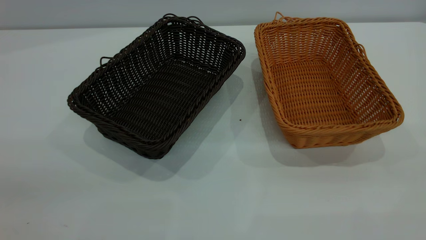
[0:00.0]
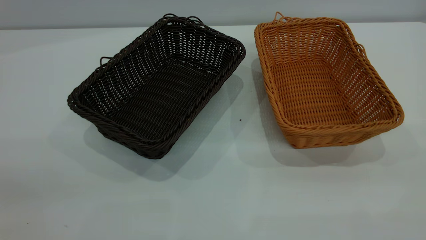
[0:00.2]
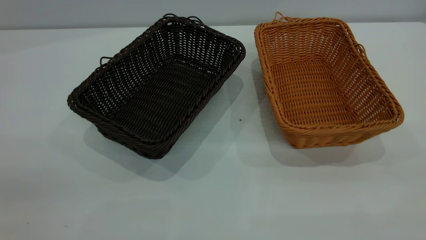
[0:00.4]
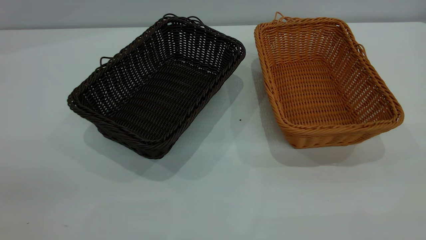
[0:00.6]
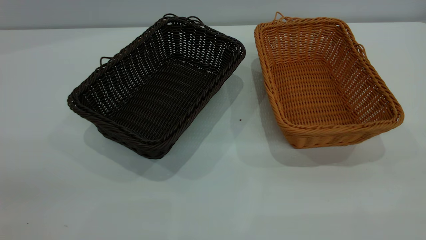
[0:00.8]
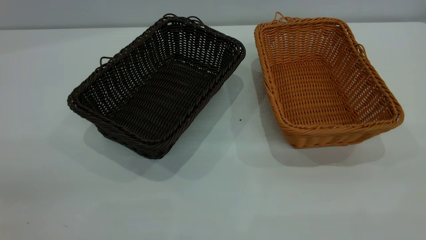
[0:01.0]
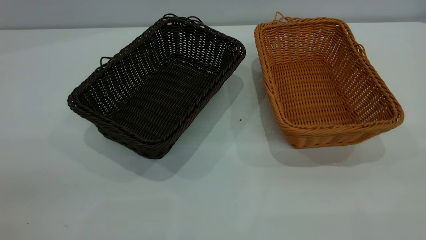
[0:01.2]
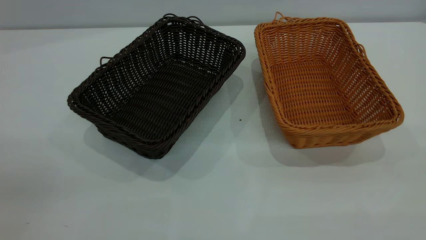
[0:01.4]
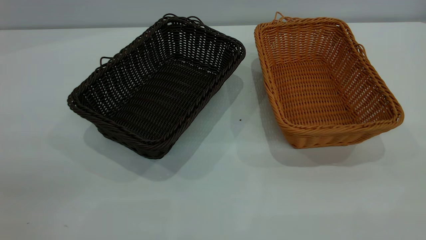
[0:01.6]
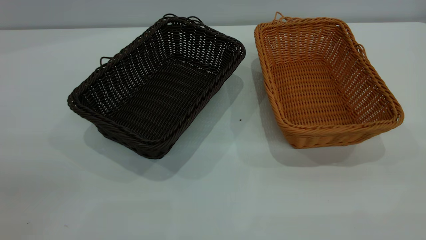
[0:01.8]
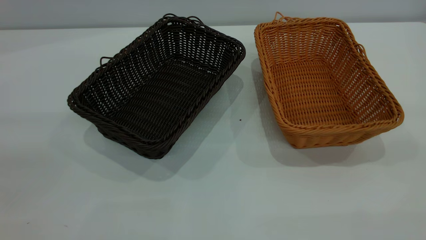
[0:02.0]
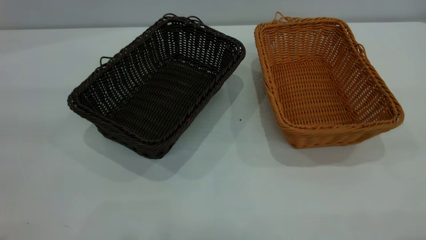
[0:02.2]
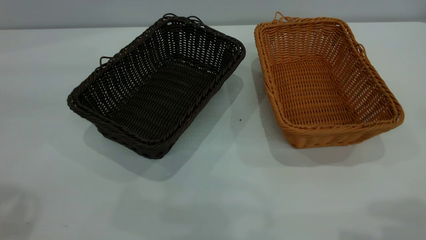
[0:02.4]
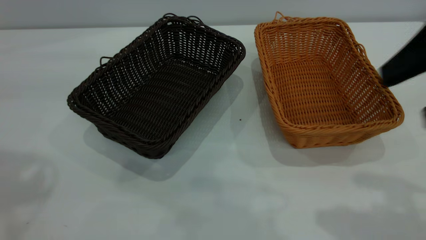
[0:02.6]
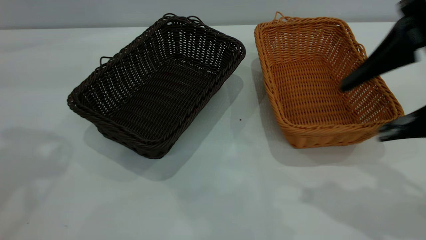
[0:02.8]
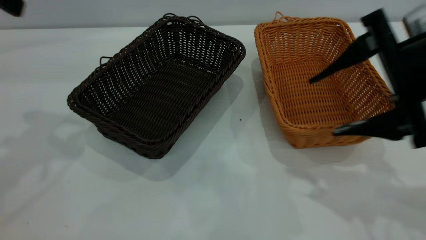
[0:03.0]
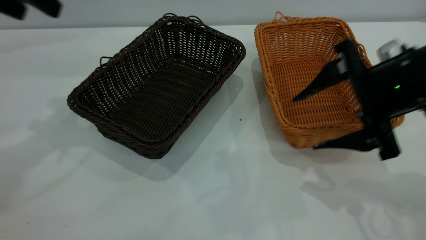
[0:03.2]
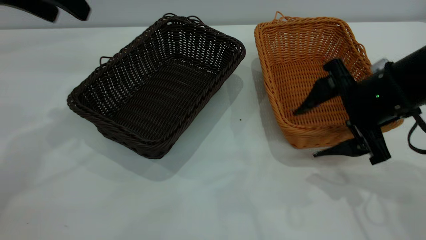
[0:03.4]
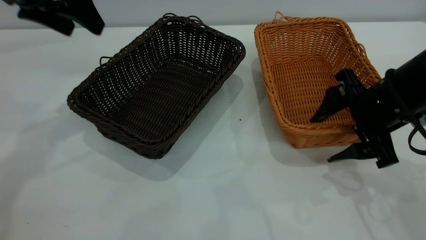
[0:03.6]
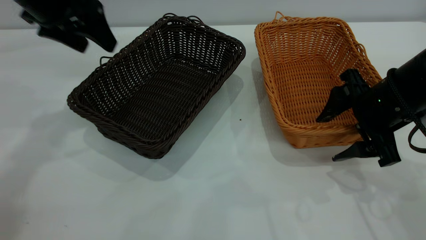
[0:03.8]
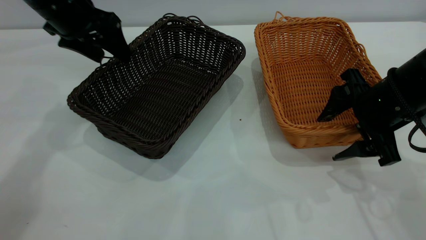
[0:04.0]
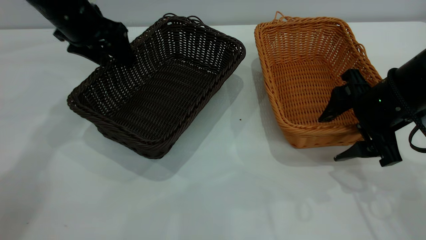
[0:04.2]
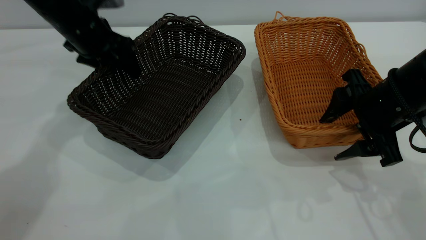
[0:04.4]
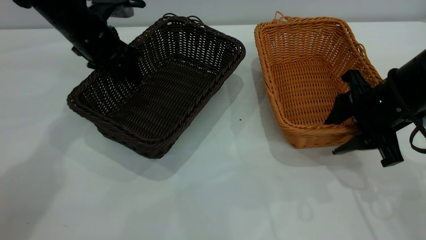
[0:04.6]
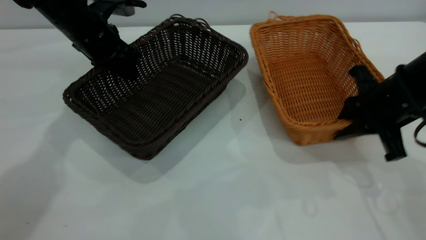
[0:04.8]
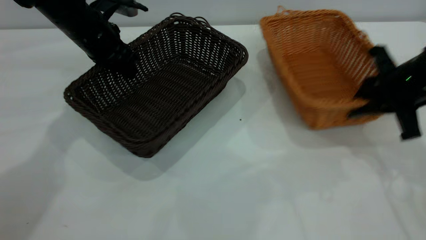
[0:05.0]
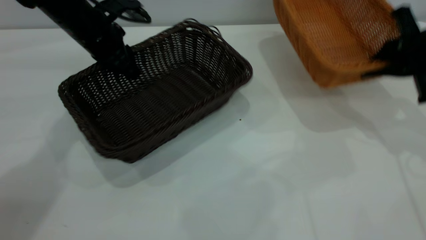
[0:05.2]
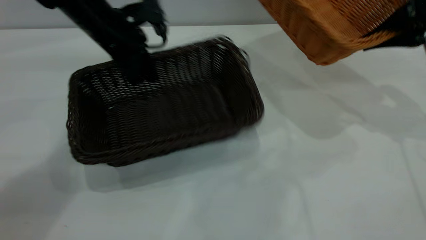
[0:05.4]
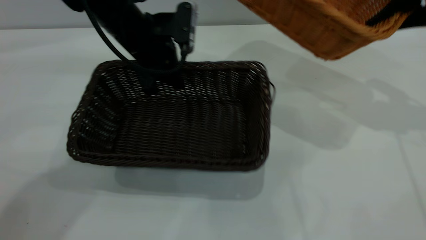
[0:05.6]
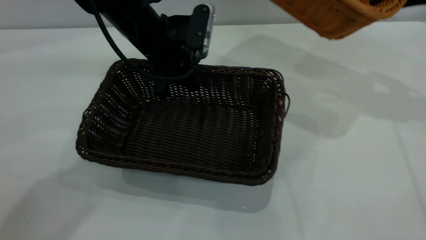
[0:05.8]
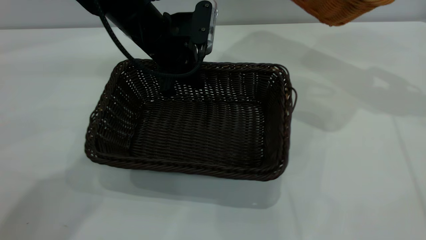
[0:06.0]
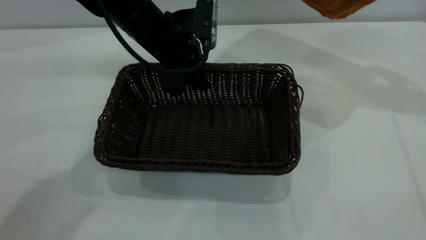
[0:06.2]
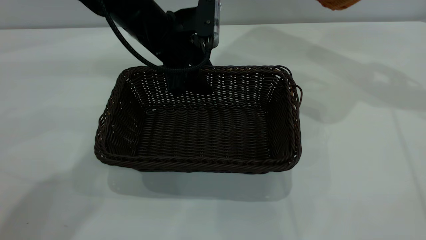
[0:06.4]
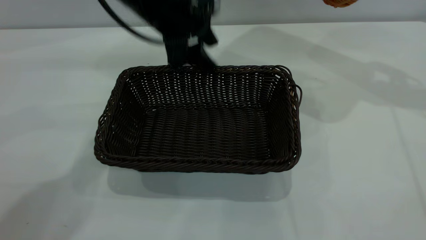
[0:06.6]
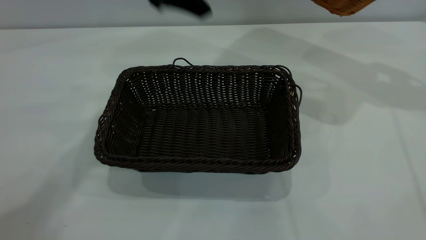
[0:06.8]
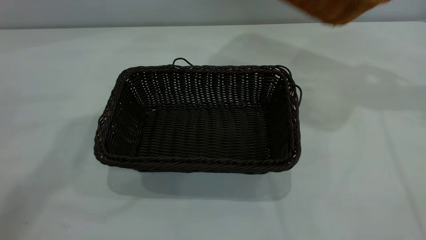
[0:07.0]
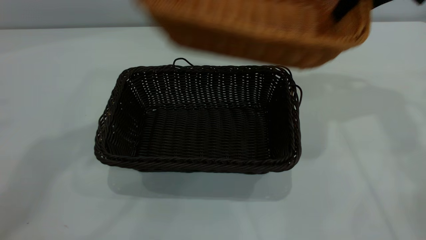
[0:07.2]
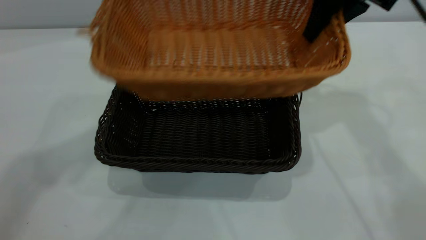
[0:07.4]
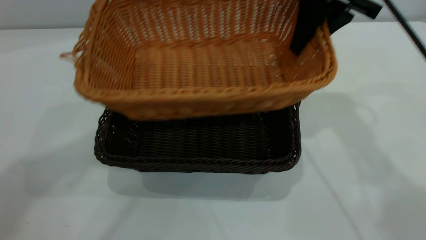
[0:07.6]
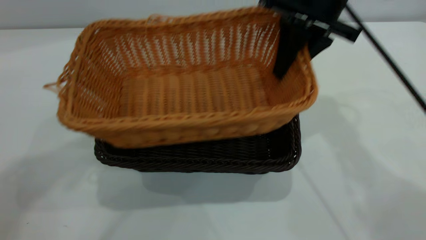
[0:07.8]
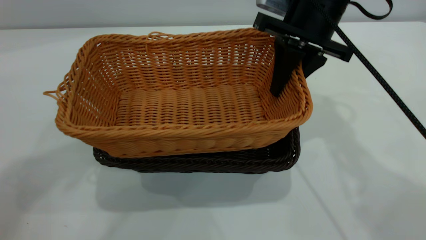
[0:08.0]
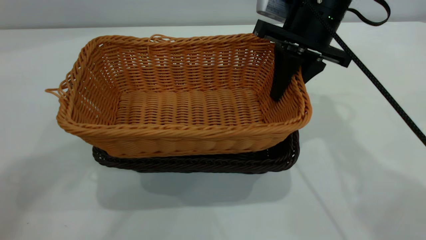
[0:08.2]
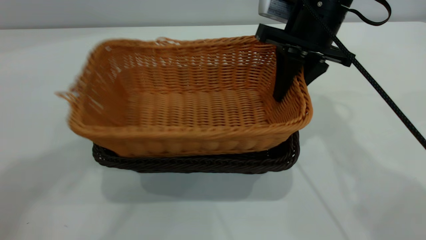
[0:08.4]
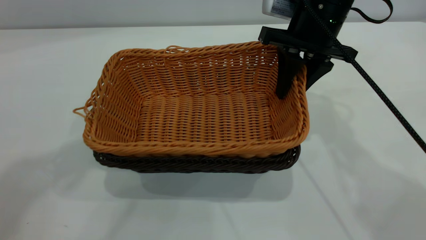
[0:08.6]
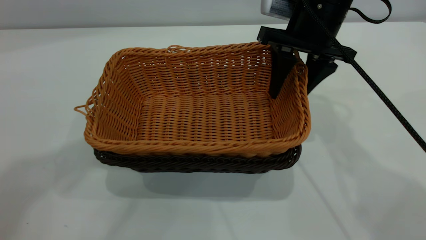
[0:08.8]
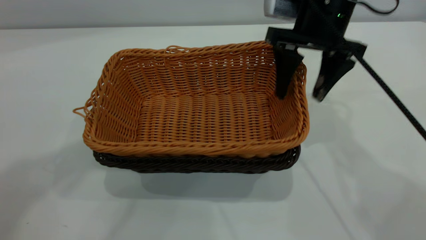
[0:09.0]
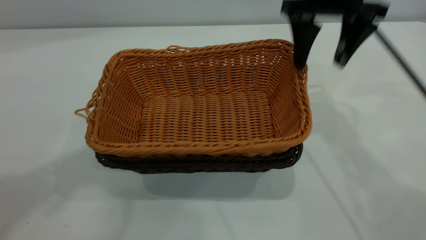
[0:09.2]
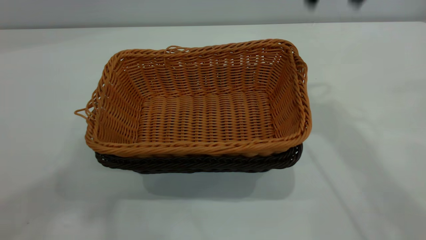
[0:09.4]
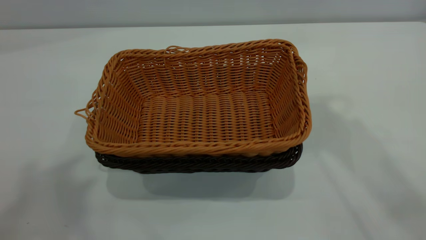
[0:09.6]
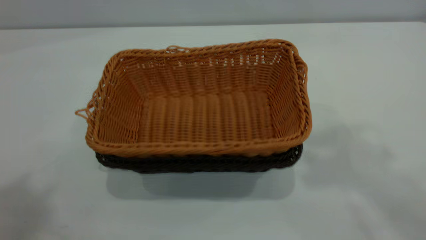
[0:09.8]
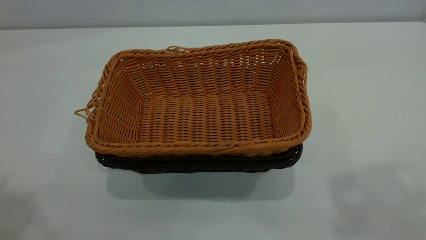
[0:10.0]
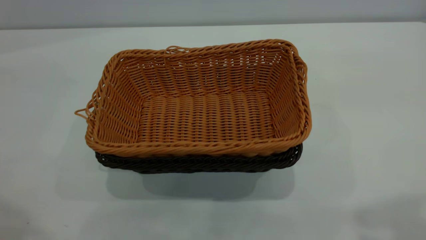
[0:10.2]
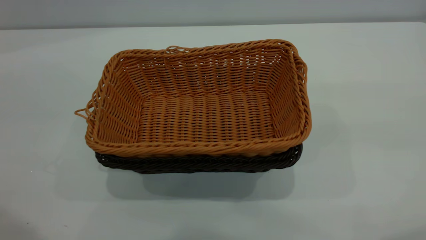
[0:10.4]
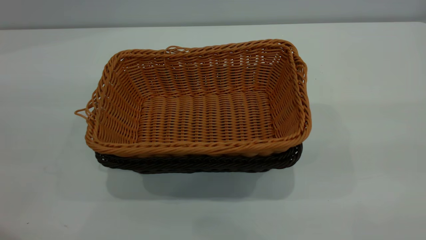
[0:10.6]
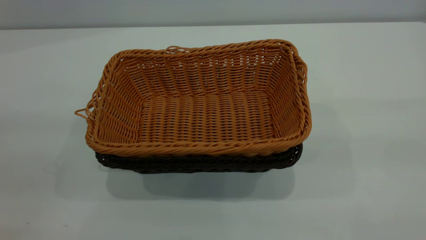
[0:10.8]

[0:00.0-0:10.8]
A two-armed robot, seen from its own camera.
Task of the whole recording: the left gripper grasp the black basket and place it in the center of the table, the right gripper grasp the brown basket and place it inside the black one.
Step, 0:00.0 to 0:05.2: Pick up the light basket with the right gripper.
Step, 0:05.4 to 0:06.6: Move the dark basket to the center of view.
Step, 0:06.8 to 0:09.2: Place the light basket on the dark basket.
0:00.0 to 0:01.6: Both grippers stay about where they are.
0:01.6 to 0:03.0: The right gripper shifts roughly 30 cm forward and downward.
0:03.0 to 0:04.6: The left gripper travels downward, forward and to the right by roughly 25 cm, and closes its fingers. Meanwhile the right gripper shifts some 10 cm downward, and closes its fingers.
0:04.6 to 0:06.2: The left gripper shifts approximately 10 cm to the right, and closes and opens again; the right gripper travels upward, forward and to the right by about 25 cm, and closes.
0:06.2 to 0:07.8: The left gripper goes approximately 35 cm upward, and opens. The right gripper is displaced to the left by approximately 20 cm.
0:07.8 to 0:09.2: The right gripper opens up.
0:09.2 to 0:10.8: The right gripper shifts roughly 30 cm backward.

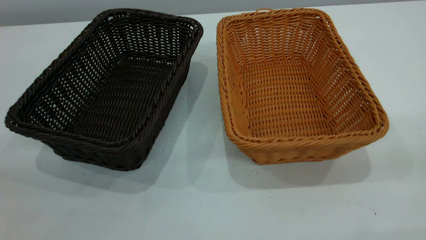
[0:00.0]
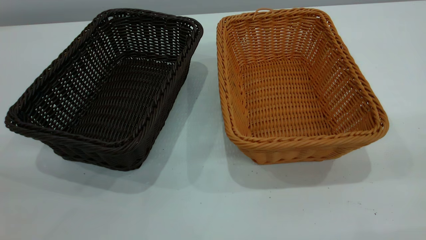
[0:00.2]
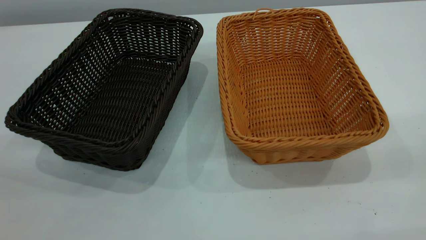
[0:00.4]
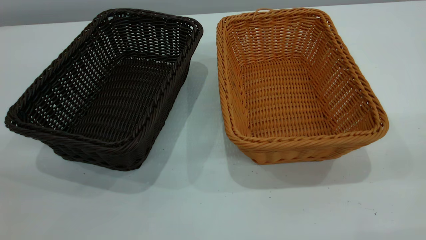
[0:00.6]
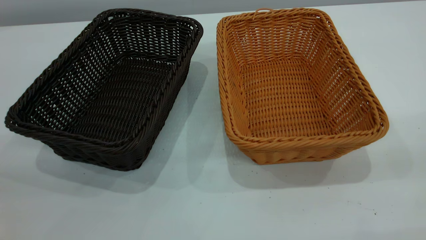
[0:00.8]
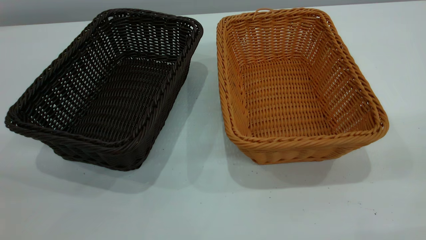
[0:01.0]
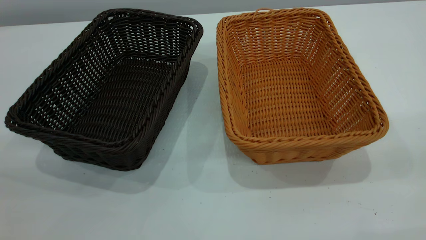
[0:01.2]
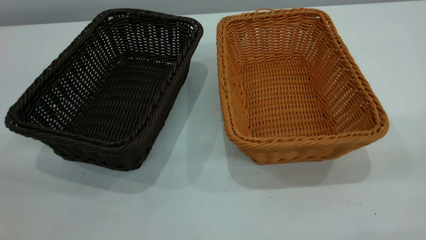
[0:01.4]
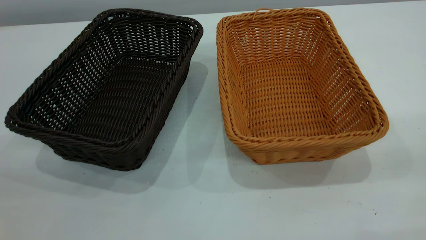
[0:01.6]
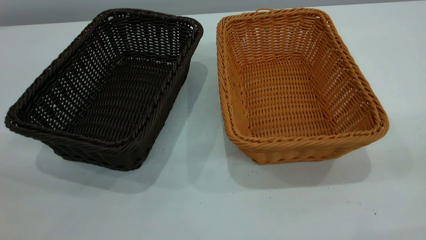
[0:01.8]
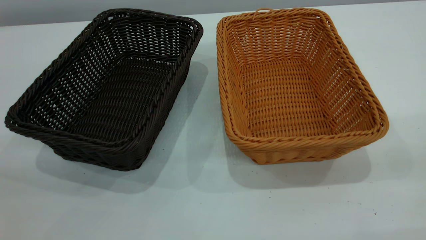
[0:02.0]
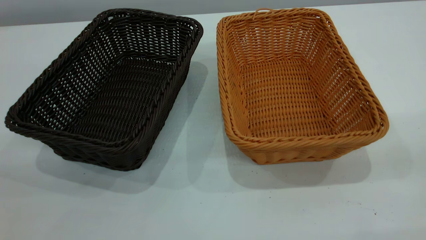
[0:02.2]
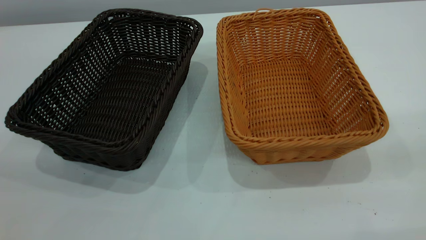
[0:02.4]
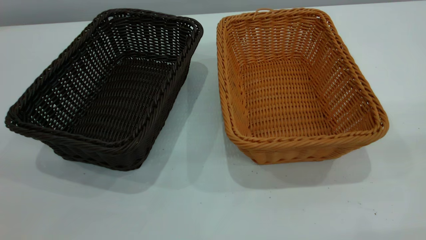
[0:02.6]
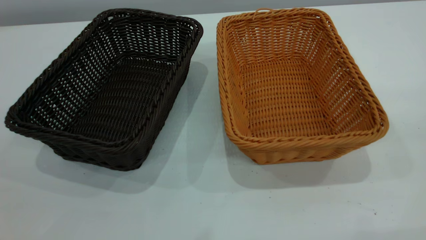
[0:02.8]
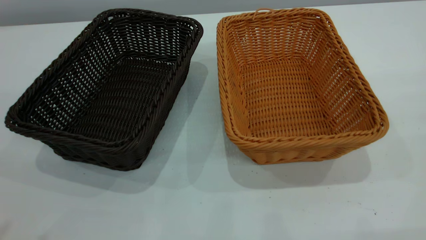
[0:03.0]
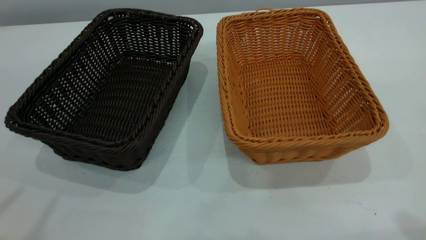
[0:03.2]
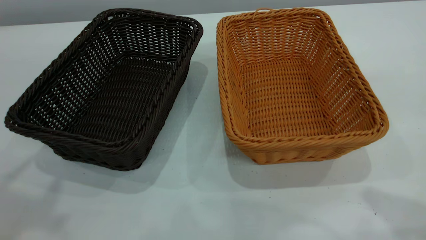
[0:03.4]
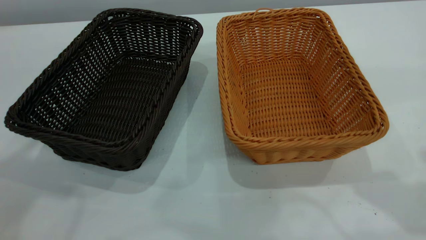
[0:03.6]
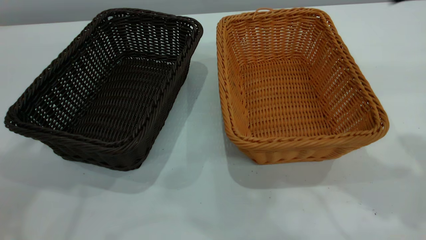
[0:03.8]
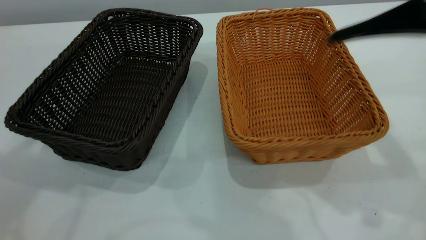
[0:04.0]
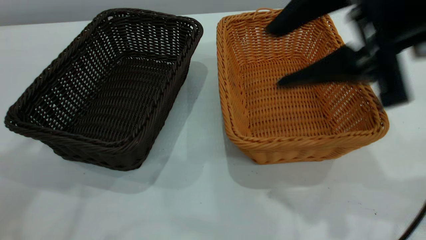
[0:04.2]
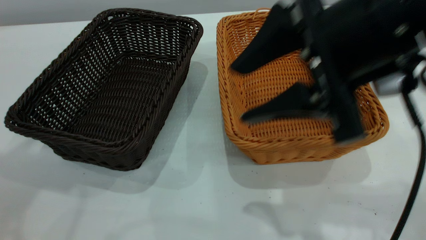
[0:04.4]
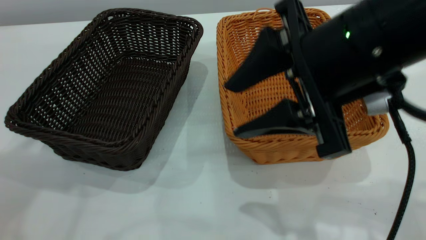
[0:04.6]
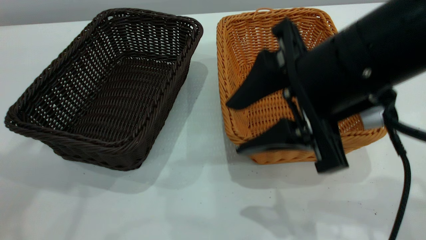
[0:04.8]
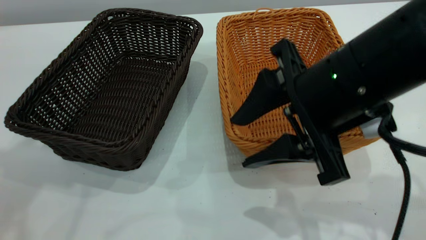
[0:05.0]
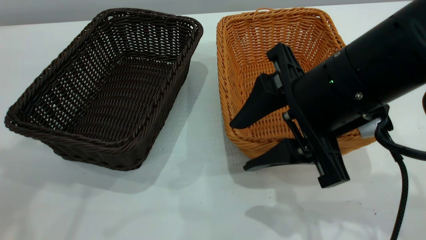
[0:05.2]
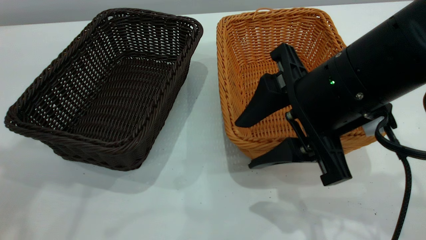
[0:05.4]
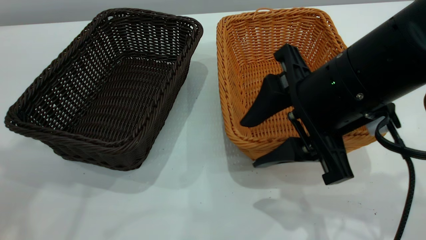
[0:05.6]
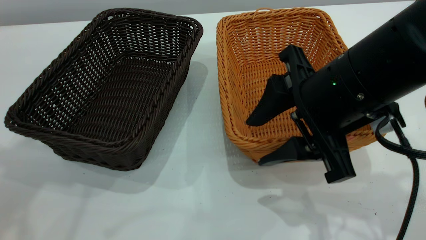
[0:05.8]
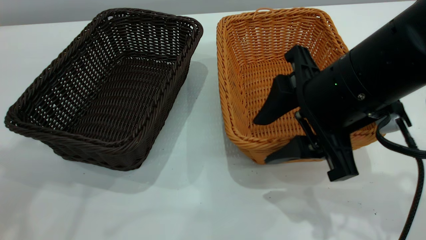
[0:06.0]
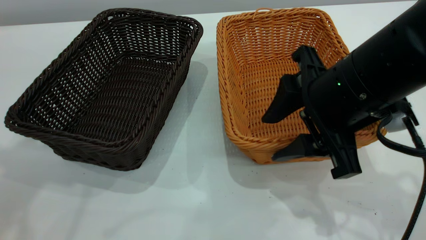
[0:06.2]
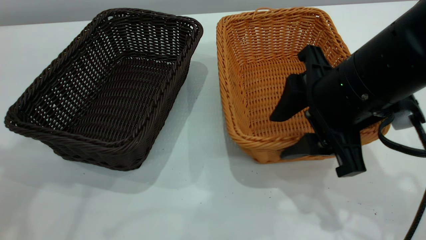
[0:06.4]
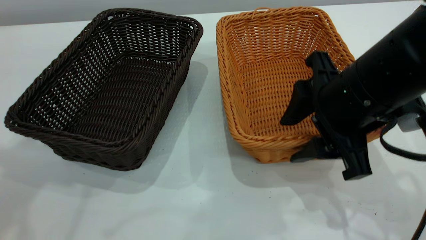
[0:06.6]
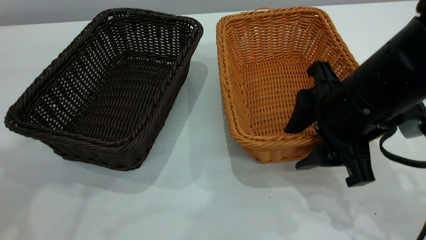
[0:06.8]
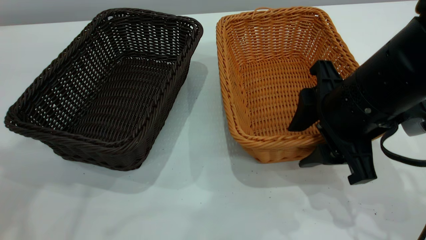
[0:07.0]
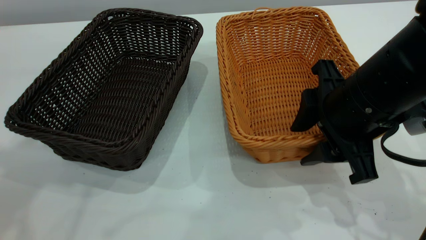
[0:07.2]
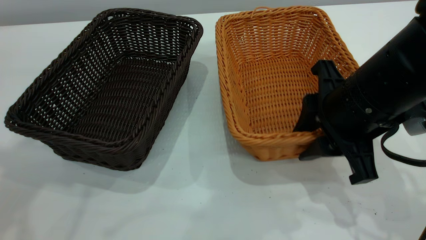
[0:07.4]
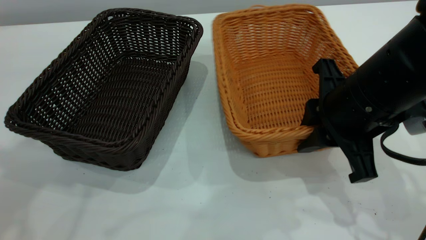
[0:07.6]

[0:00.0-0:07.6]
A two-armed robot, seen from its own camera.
Task of the whole recording: the left gripper grasp the black basket and place it in the center of the table, the right gripper grasp the brown basket and place it inside the black one.
0:00.0 to 0:01.6: Neither gripper changes place.
0:03.0 to 0:04.6: The right gripper heads downward, forward and to the left, covering approximately 30 cm, while the left gripper is displaced forward by about 15 cm.
0:04.6 to 0:06.0: The grippers make only small movements.
0:06.0 to 0:07.6: The right gripper closes its fingers.
